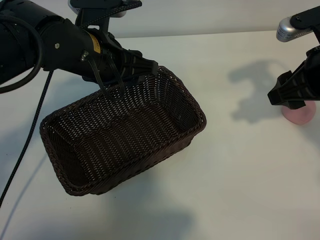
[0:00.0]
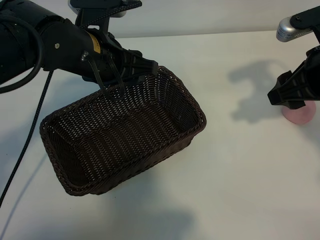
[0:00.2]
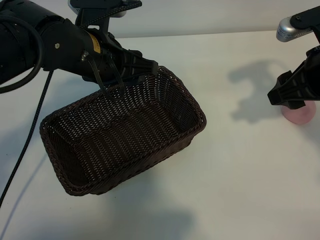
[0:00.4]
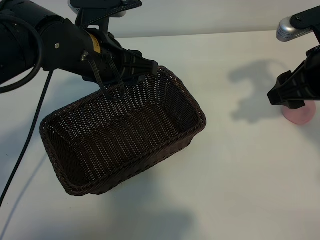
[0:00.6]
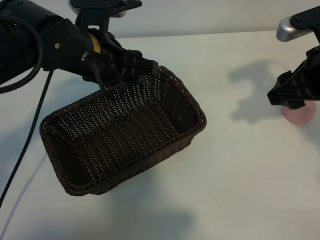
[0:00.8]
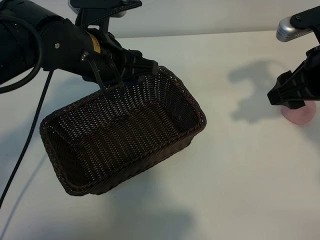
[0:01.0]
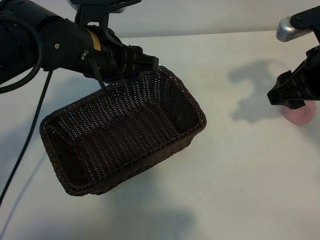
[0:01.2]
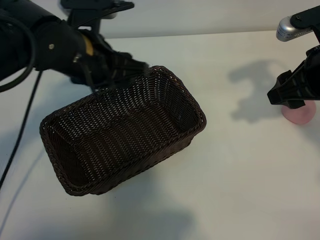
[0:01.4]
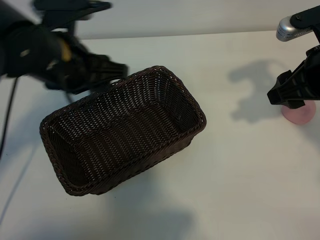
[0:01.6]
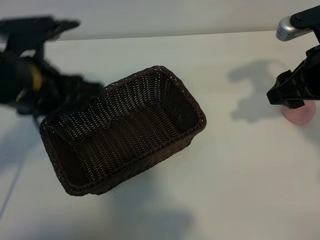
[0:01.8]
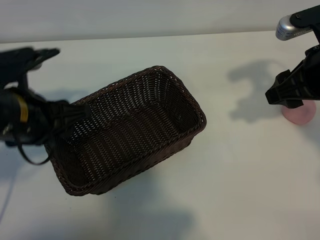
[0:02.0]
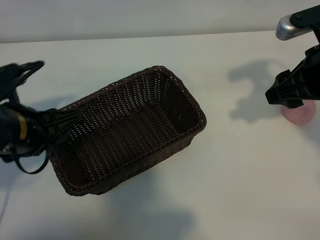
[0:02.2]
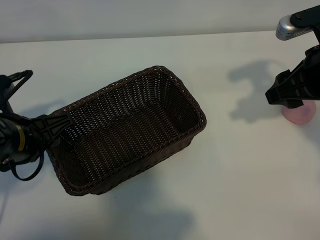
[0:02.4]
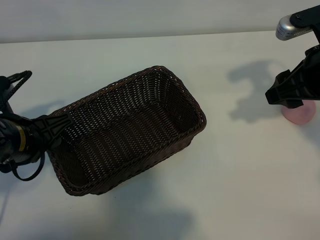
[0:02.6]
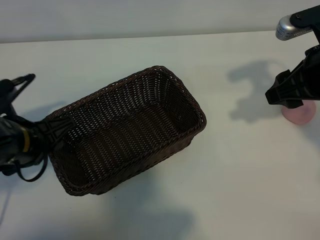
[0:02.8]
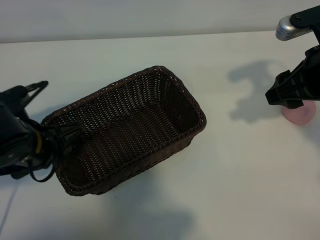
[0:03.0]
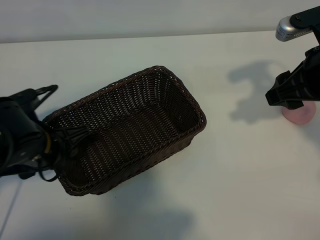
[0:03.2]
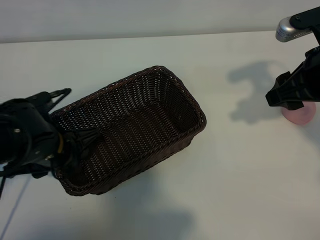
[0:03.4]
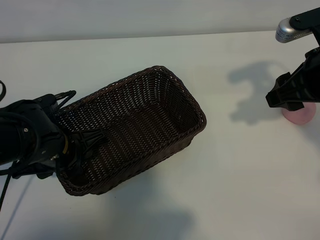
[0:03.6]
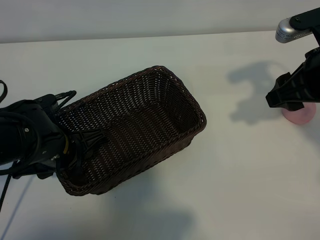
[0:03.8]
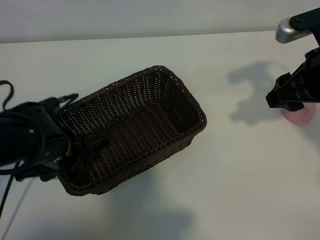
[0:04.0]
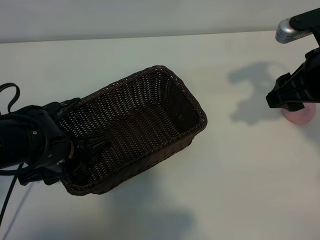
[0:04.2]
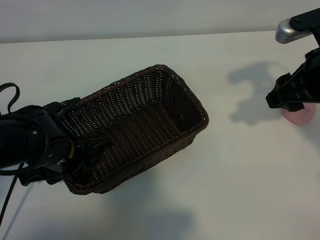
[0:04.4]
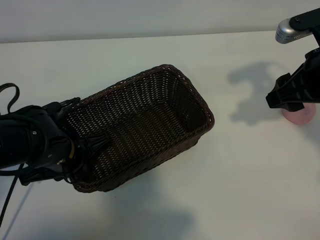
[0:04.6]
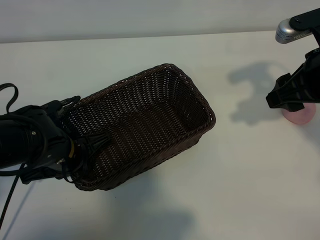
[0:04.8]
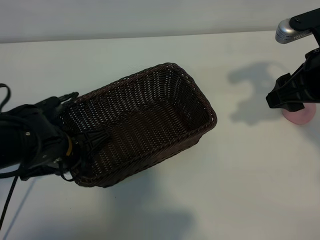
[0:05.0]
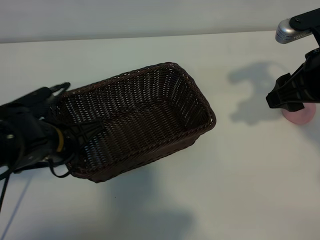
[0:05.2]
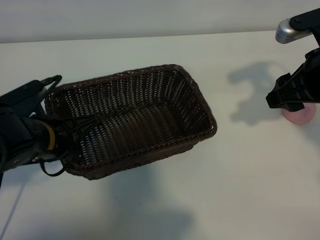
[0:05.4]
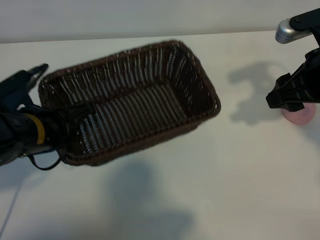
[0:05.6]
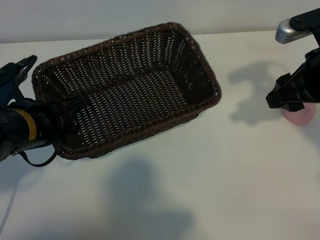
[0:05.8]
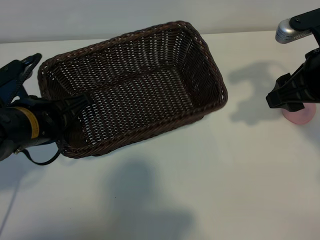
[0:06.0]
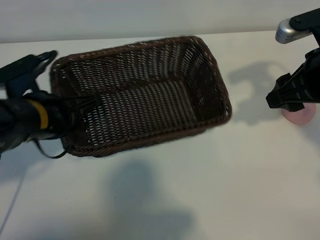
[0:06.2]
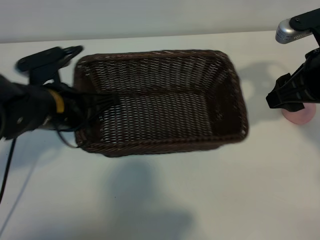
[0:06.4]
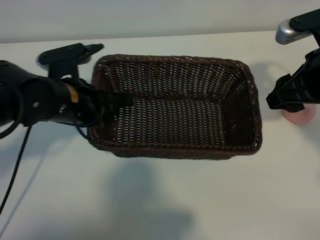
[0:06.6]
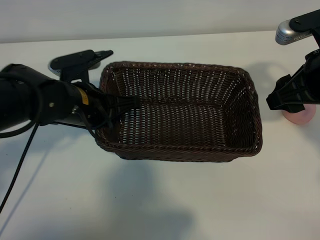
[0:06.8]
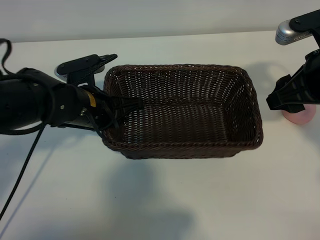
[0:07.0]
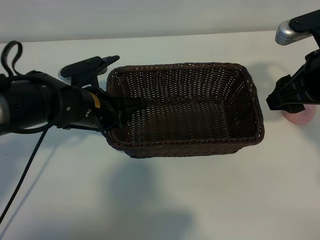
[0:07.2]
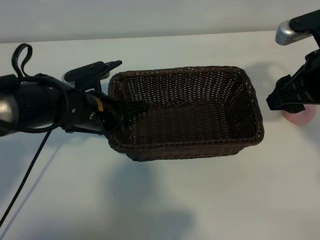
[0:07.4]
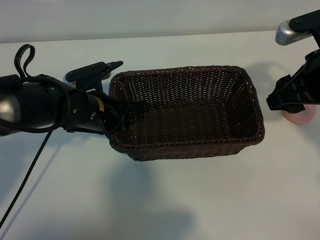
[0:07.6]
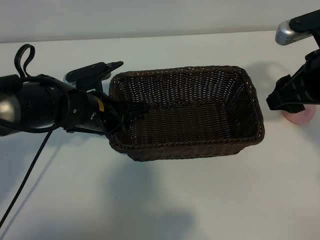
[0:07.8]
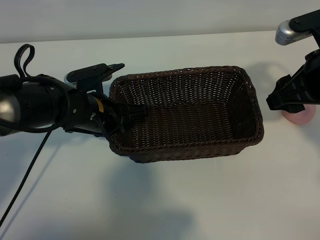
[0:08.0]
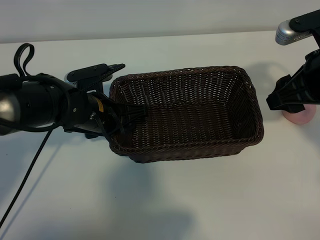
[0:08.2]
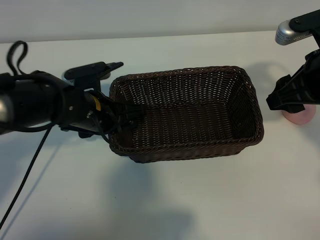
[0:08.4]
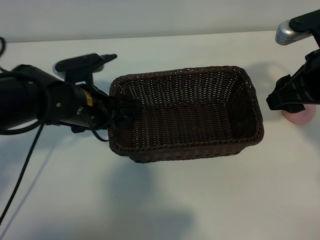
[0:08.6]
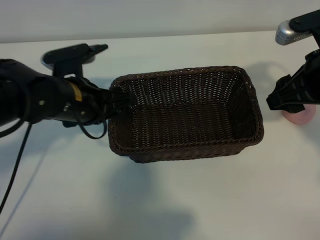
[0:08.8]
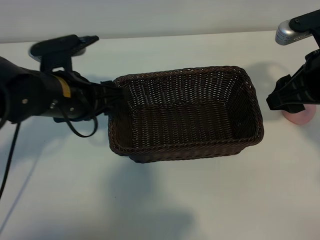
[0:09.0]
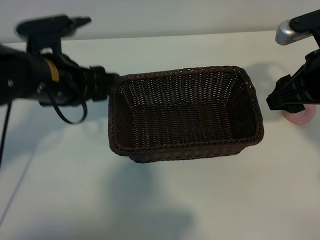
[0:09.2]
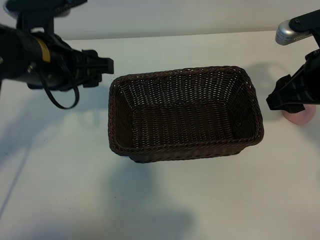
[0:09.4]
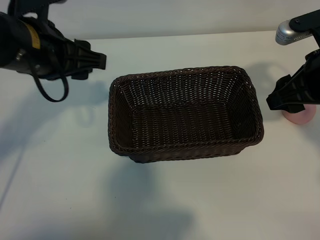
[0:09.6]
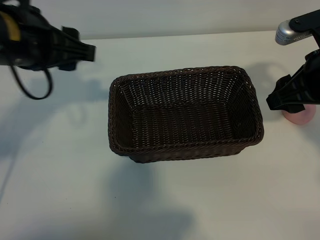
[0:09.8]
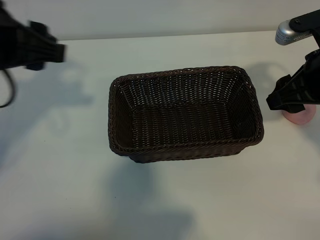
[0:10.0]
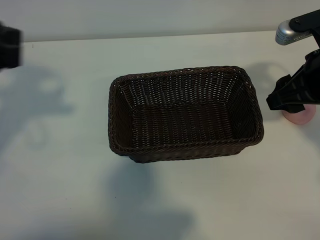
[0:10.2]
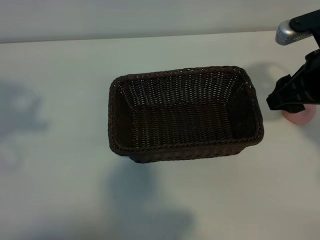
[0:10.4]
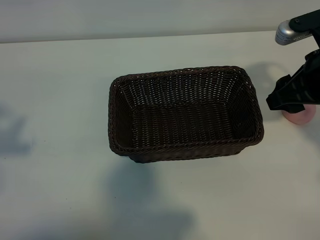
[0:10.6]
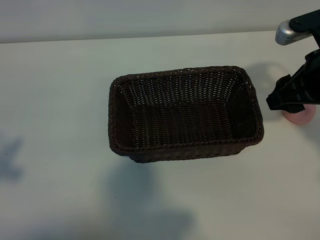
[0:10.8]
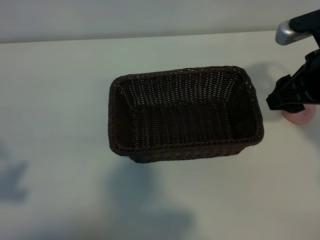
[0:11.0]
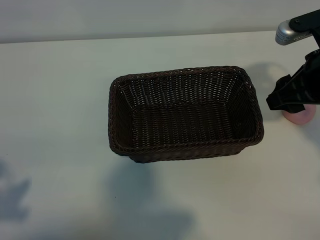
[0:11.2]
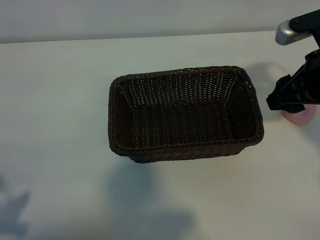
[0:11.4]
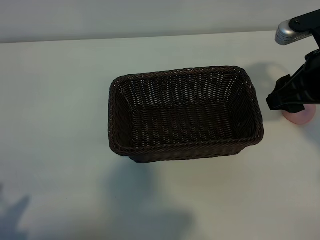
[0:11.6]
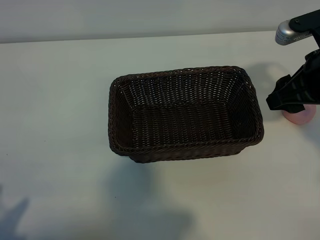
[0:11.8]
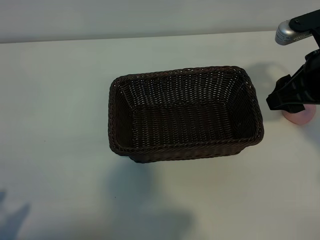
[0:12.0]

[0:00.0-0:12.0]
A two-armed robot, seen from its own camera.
Task of the whole recording: pick up the peach and put it into the basket.
Step, 0:01.2 to 0:04.8: Grasp the basket with left gripper.
Step, 0:05.0 to 0:08.8: Place the basket in the center of view with left gripper.

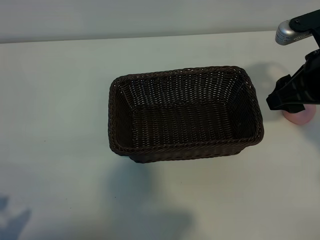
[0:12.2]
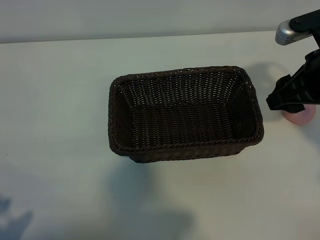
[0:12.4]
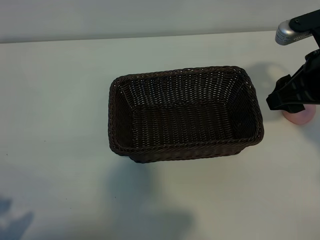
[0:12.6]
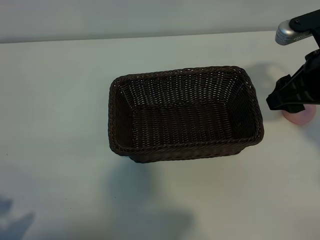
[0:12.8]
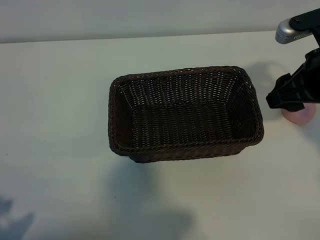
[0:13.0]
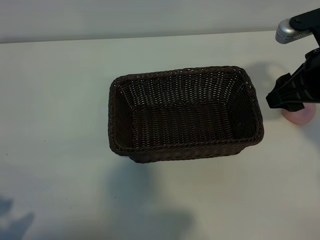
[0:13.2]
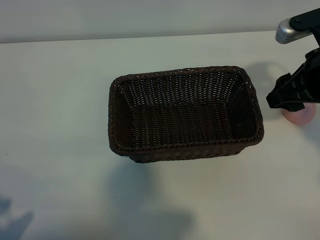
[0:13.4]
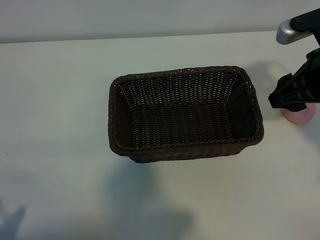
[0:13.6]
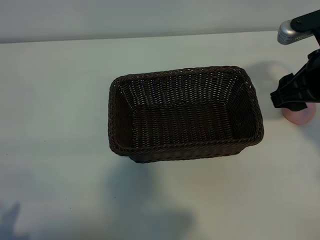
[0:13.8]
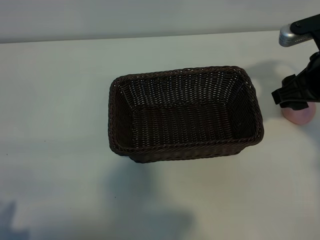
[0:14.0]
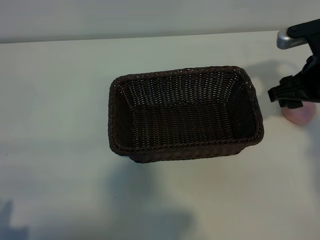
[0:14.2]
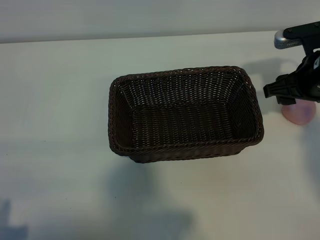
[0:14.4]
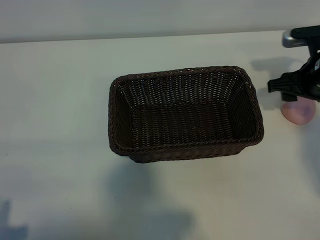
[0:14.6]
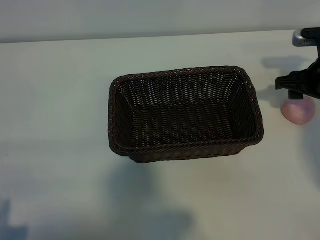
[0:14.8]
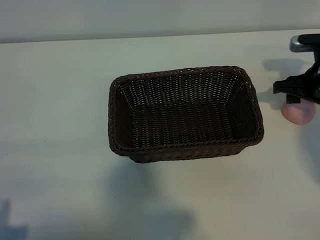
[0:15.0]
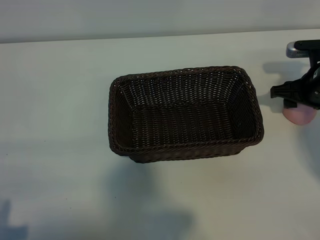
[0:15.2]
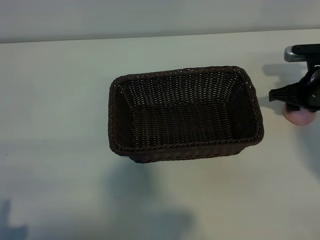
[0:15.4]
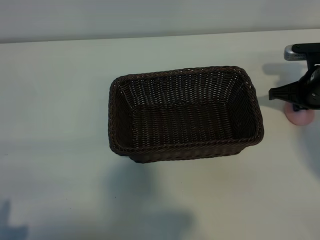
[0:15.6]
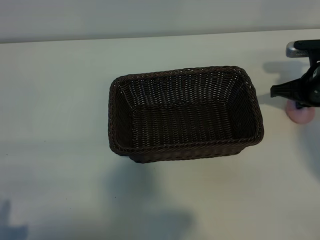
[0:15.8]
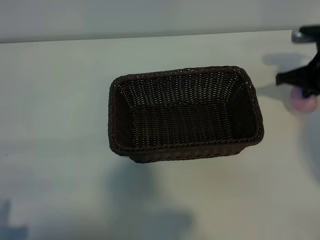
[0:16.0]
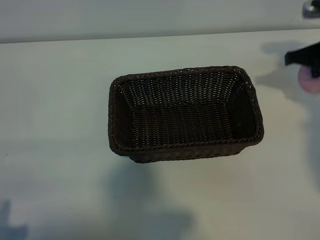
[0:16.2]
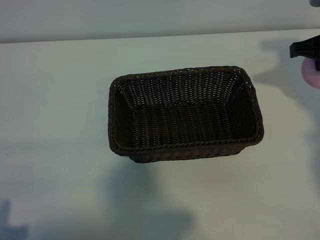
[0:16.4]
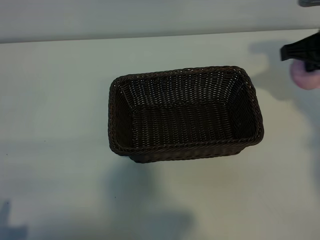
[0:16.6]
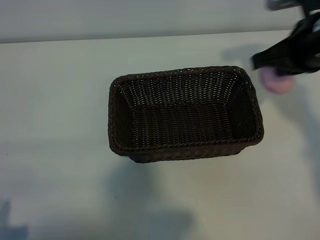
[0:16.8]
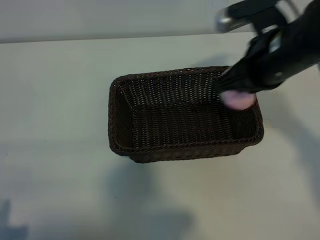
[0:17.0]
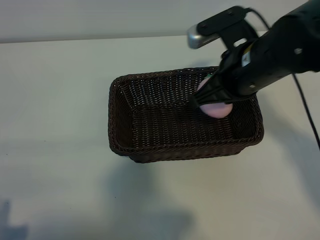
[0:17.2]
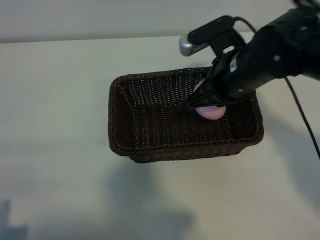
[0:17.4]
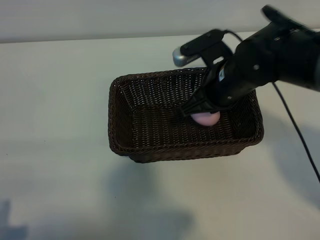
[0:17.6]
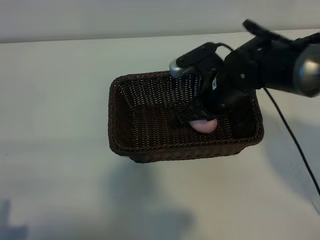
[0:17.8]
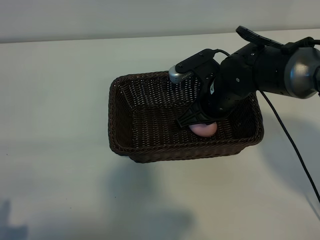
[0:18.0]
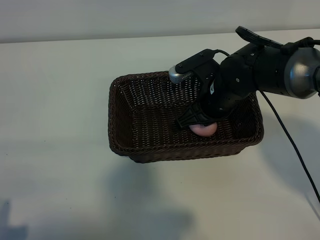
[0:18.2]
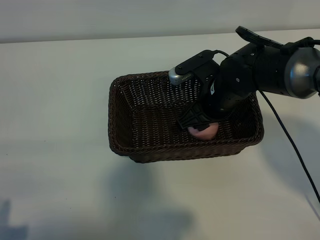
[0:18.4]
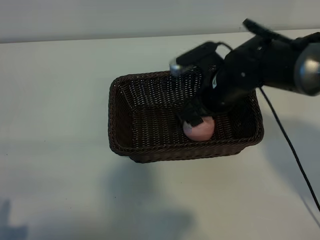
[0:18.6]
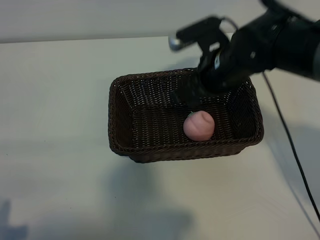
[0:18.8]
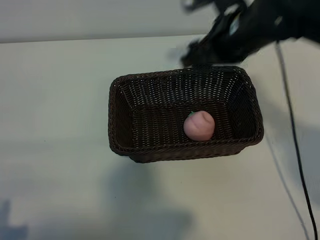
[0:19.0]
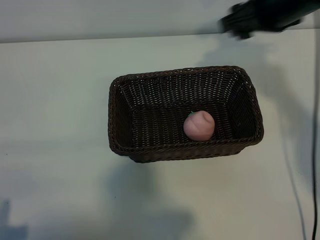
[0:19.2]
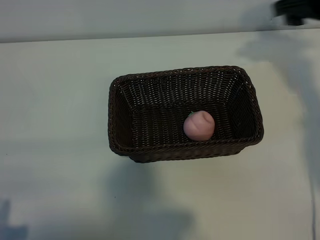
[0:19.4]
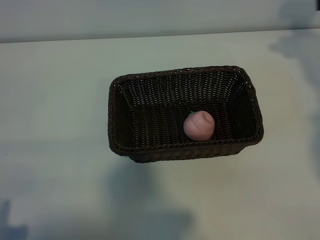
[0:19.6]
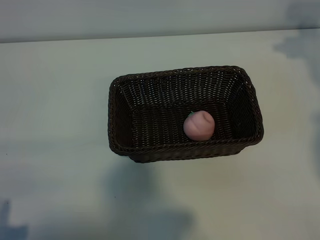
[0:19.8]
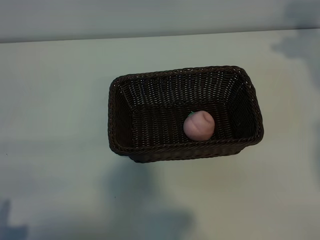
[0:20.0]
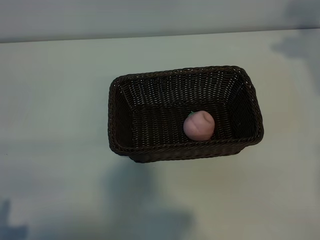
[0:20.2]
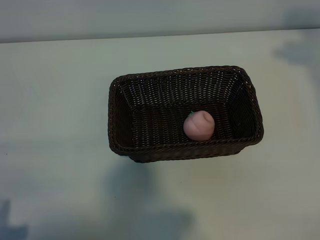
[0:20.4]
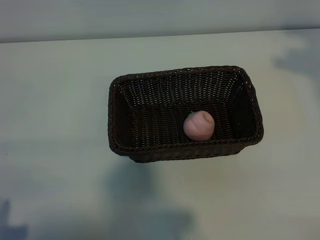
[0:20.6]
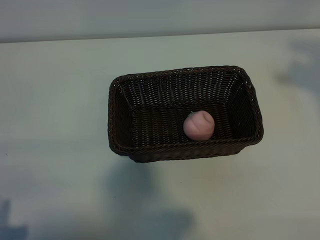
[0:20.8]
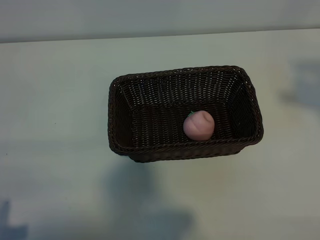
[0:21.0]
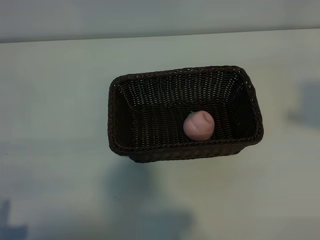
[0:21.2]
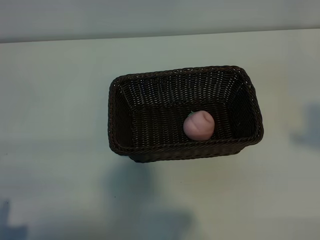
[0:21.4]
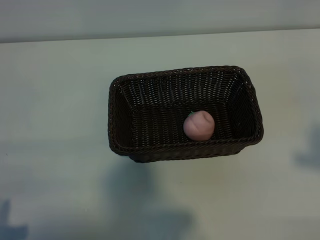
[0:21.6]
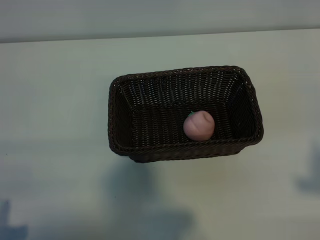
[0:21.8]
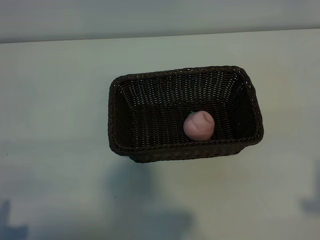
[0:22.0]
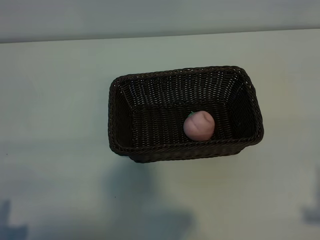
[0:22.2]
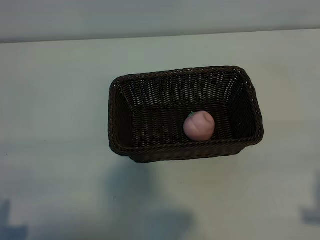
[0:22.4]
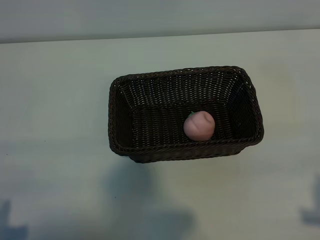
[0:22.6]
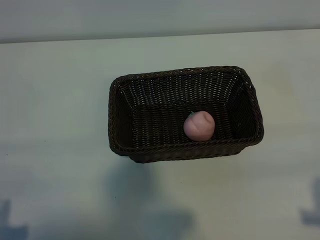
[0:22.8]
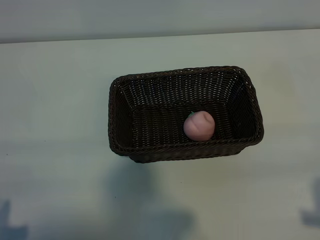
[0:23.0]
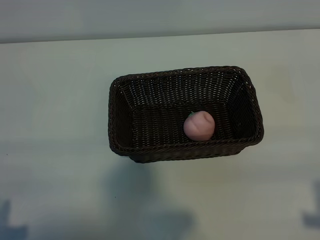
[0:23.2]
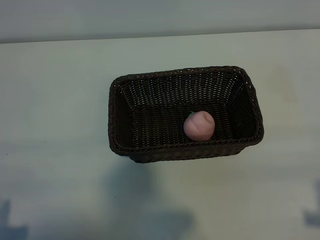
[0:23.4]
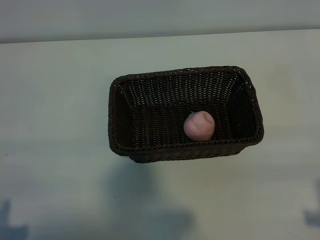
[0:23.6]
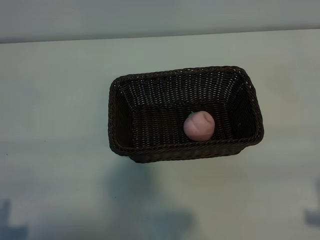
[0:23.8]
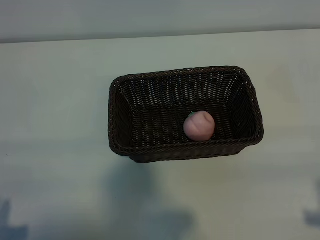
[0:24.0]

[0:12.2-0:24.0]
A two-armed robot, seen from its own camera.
Task of the whole recording: pick up the peach and put it into the basket.
Step, 0:12.2 to 0:15.6: Grasp the peach with right gripper.
Step, 0:15.8 to 0:18.6: Place the peach in the basket with right gripper.
